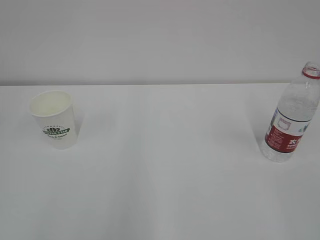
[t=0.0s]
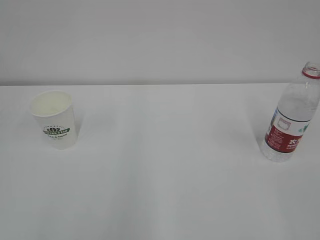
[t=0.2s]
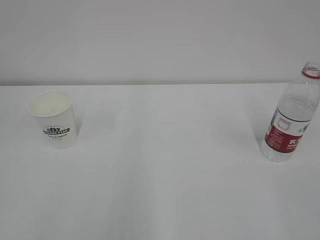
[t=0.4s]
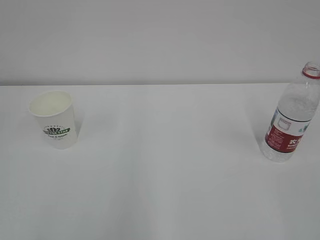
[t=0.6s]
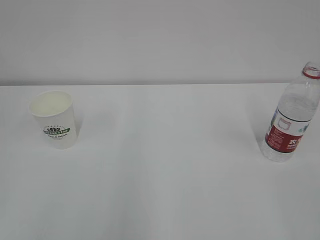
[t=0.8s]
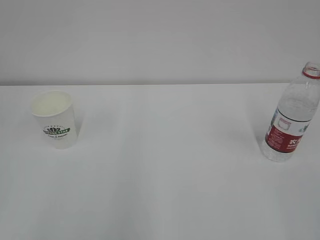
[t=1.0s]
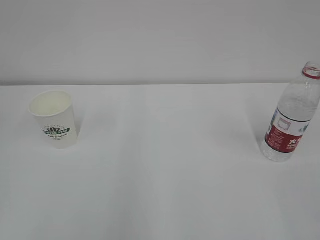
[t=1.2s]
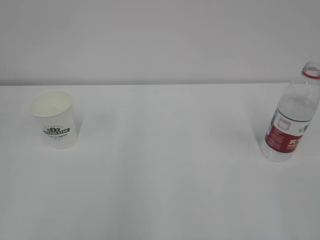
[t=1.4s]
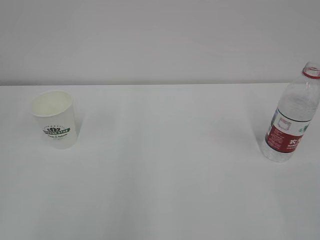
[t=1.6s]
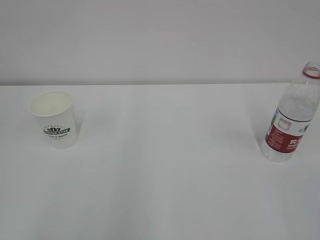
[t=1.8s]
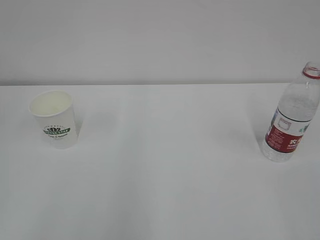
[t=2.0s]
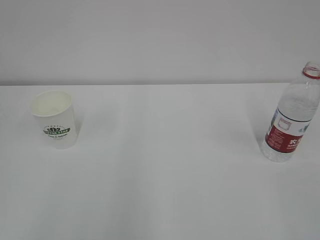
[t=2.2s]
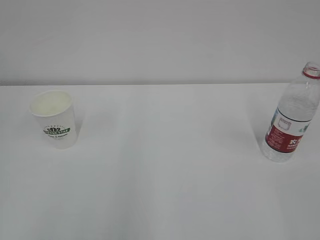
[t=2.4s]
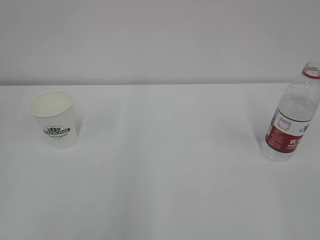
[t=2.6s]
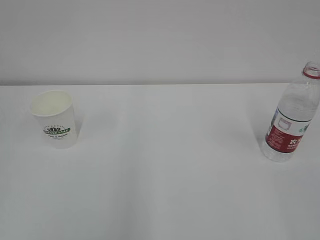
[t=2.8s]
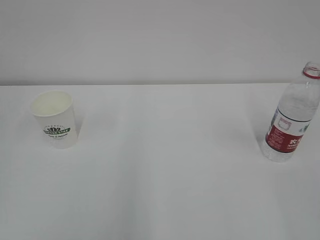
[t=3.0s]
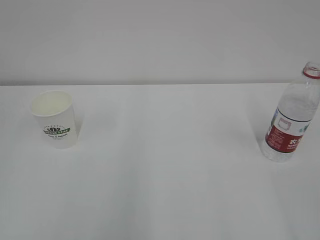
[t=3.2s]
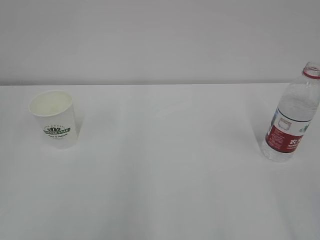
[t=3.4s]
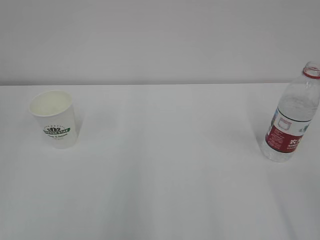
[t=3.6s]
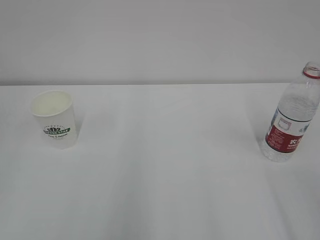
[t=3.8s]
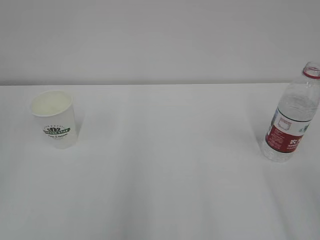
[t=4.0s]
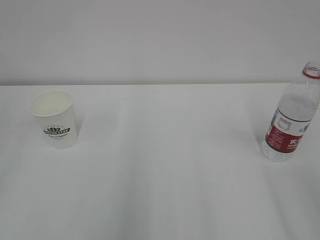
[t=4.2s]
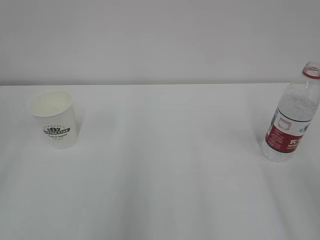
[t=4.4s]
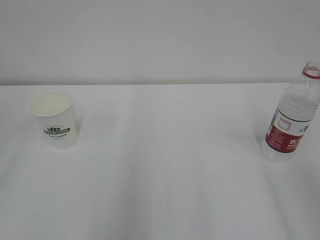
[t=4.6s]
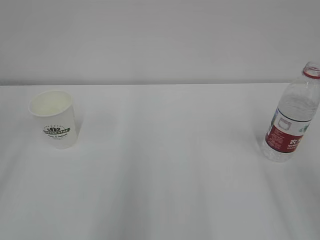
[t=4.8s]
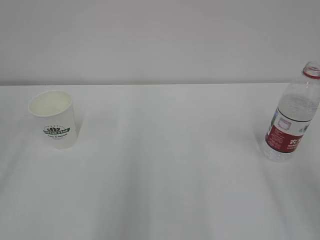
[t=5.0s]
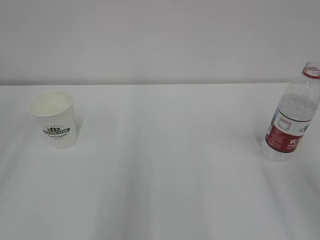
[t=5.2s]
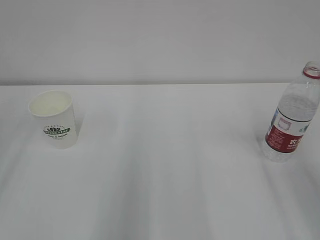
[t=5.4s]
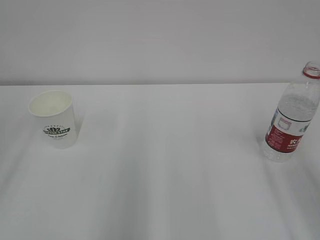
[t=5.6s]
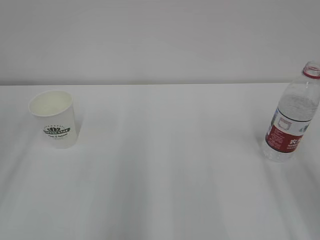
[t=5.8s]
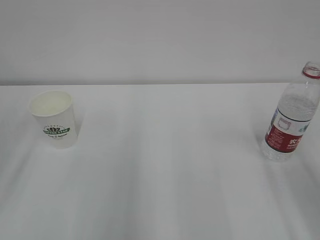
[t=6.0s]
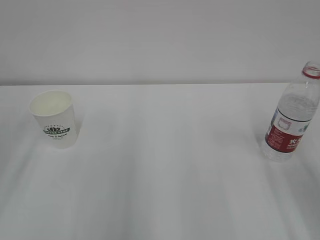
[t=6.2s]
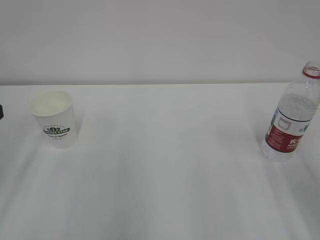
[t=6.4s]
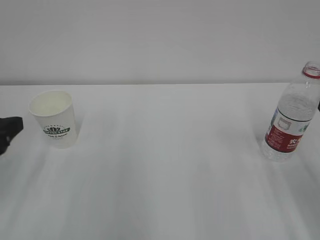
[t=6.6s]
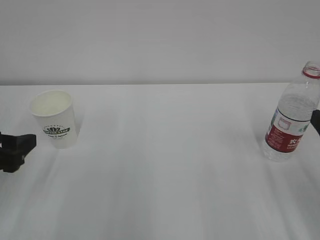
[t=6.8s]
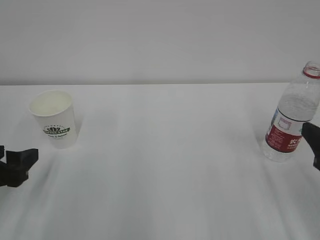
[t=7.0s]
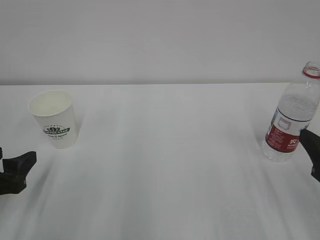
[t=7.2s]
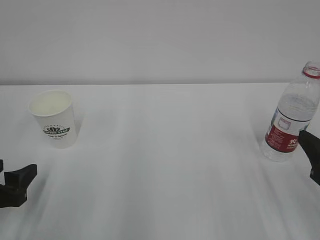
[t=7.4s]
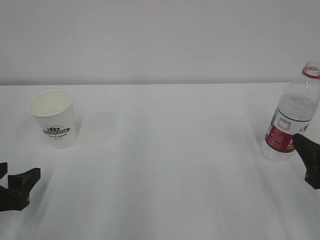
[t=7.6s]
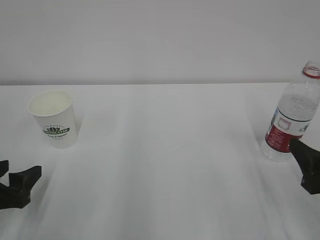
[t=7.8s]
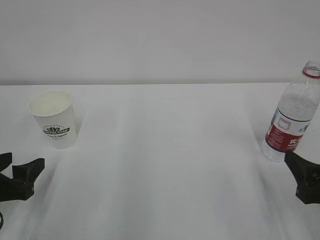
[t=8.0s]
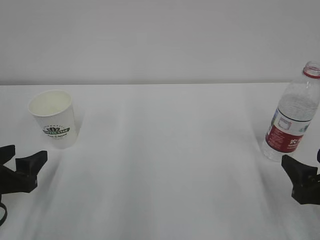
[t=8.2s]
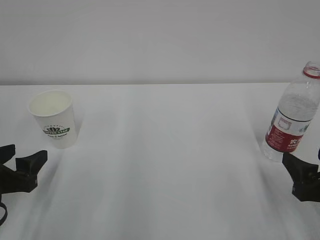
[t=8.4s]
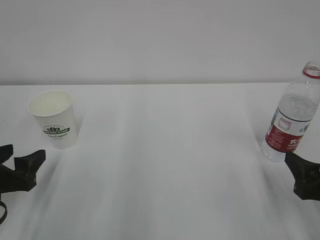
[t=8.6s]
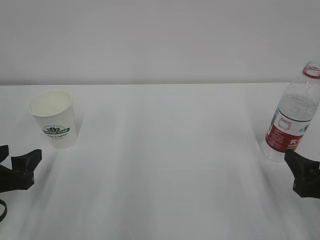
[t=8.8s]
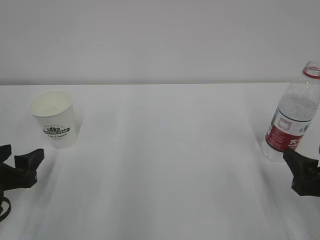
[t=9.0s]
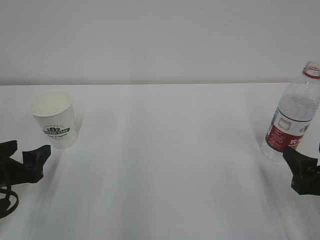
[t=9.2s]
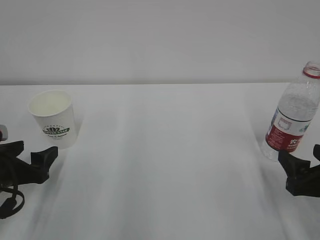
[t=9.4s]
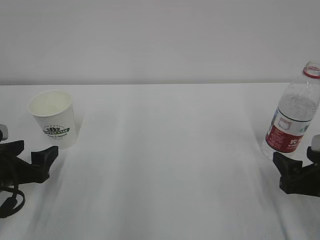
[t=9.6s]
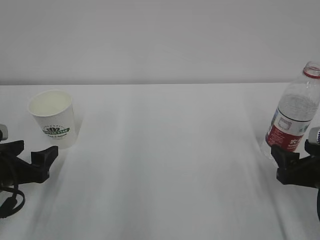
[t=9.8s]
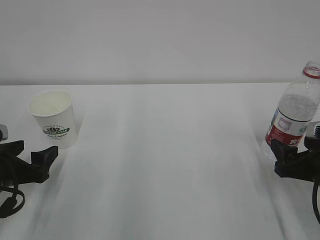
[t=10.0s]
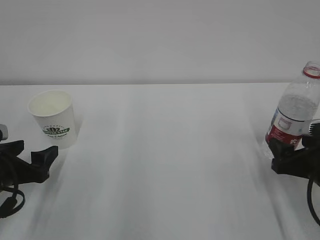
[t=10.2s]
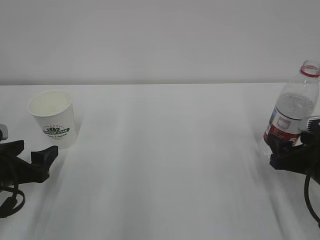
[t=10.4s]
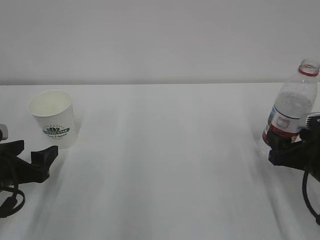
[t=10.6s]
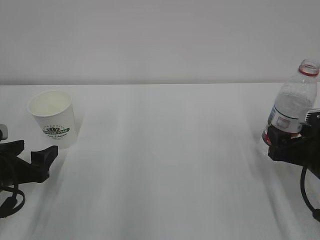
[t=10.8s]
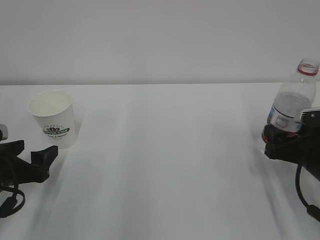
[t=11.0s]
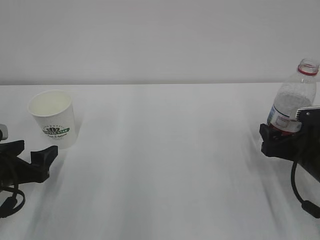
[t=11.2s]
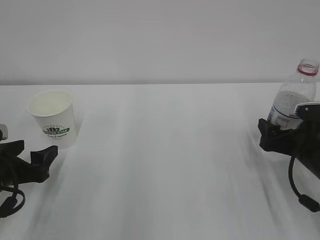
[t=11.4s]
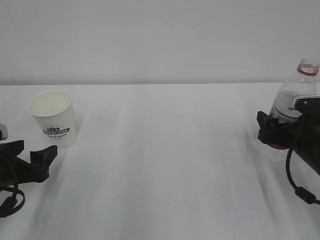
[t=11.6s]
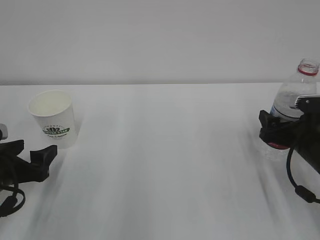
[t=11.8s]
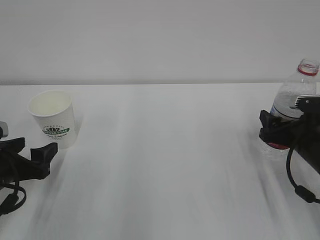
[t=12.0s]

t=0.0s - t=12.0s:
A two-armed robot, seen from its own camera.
t=6.0s - t=7.6s: The right gripper shifts some 10 cm downward; the left gripper shifts some 15 cm downward.
t=7.6s - t=9.0s: The grippers make only small movements.
t=9.0s - t=10.4s: The right gripper goes roughly 5 cm forward. Meanwhile the left gripper opens its fingers.
t=10.4s - t=12.0s: The right gripper heads forward, covering some 5 cm.

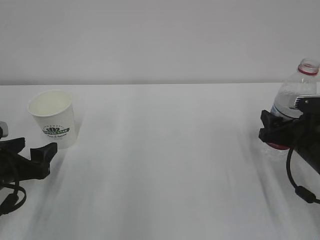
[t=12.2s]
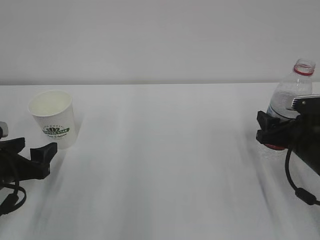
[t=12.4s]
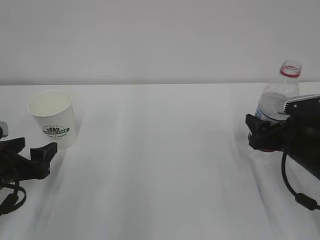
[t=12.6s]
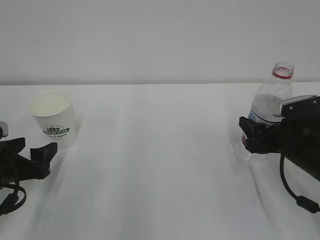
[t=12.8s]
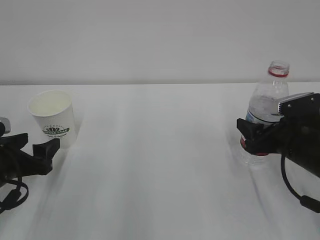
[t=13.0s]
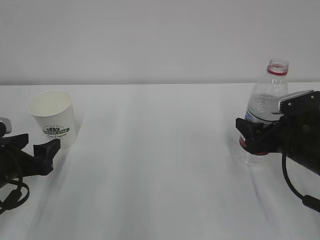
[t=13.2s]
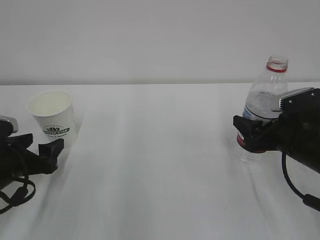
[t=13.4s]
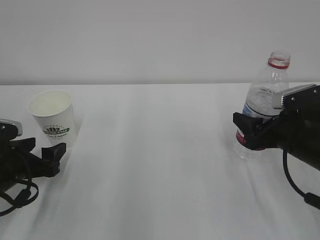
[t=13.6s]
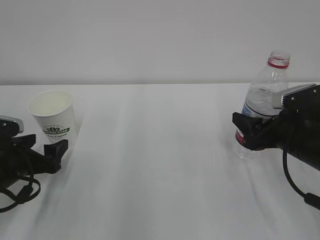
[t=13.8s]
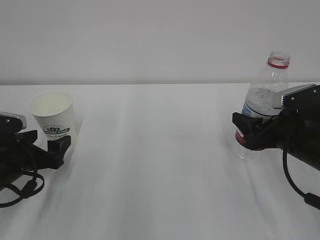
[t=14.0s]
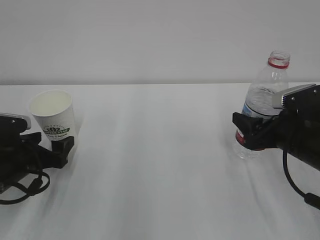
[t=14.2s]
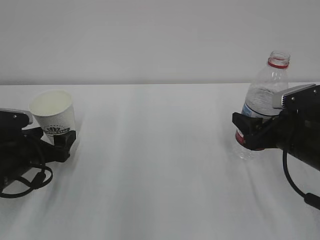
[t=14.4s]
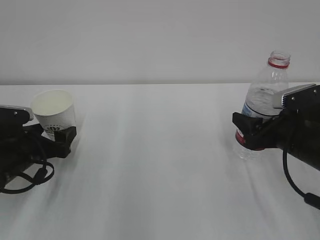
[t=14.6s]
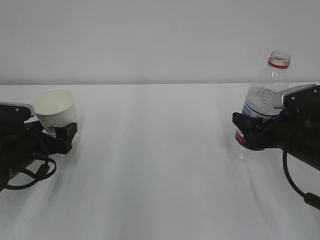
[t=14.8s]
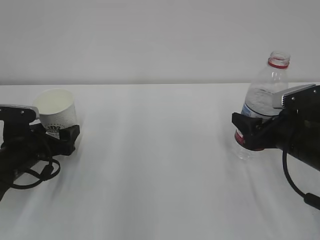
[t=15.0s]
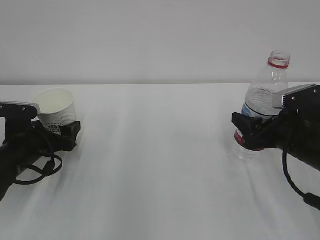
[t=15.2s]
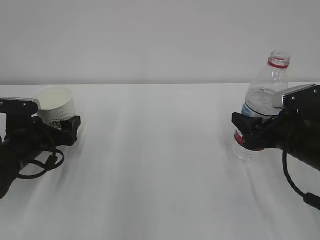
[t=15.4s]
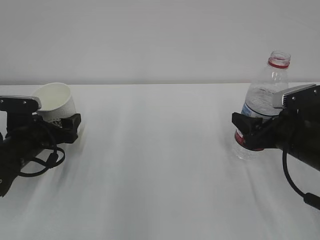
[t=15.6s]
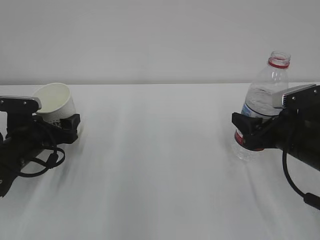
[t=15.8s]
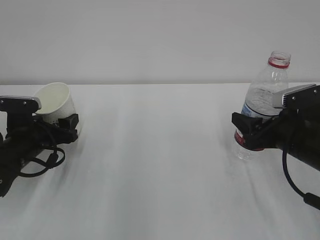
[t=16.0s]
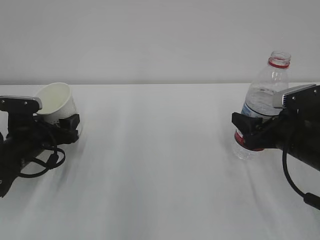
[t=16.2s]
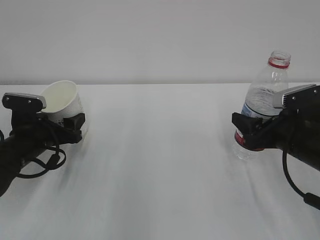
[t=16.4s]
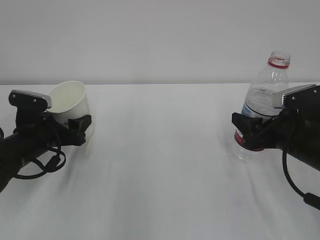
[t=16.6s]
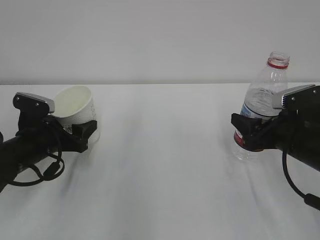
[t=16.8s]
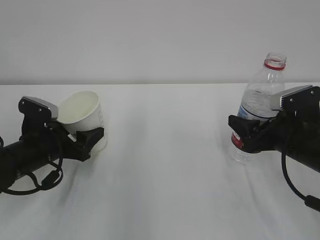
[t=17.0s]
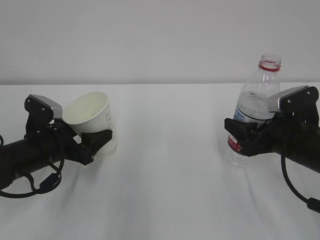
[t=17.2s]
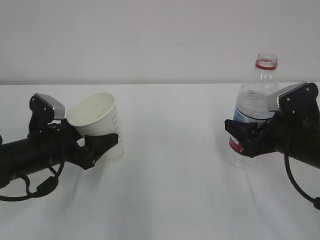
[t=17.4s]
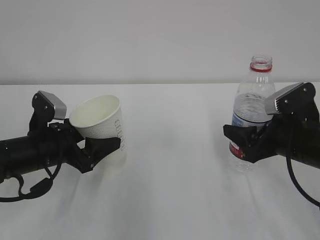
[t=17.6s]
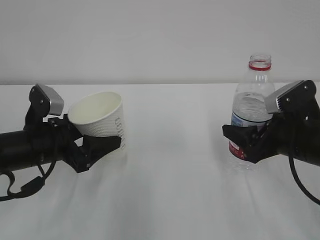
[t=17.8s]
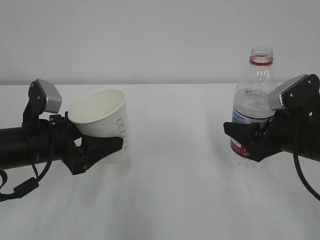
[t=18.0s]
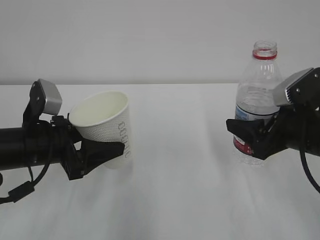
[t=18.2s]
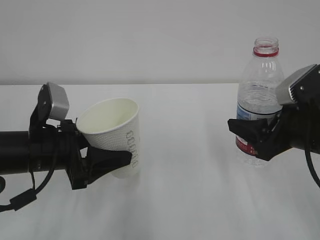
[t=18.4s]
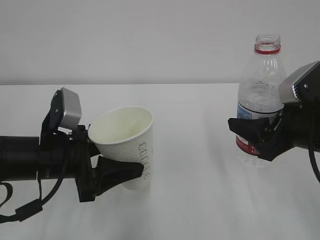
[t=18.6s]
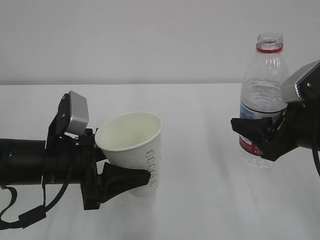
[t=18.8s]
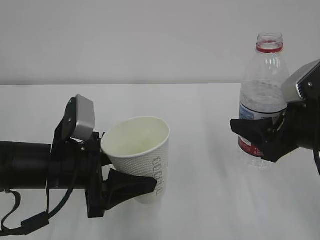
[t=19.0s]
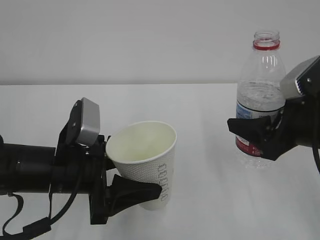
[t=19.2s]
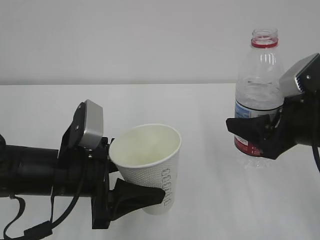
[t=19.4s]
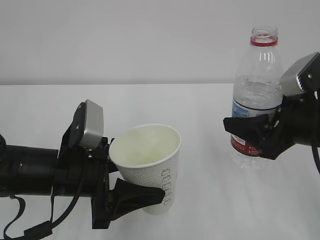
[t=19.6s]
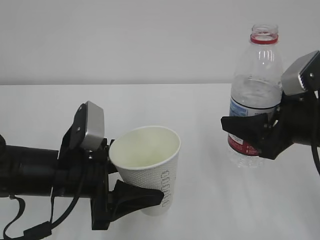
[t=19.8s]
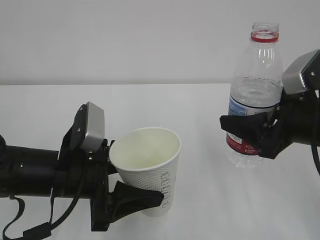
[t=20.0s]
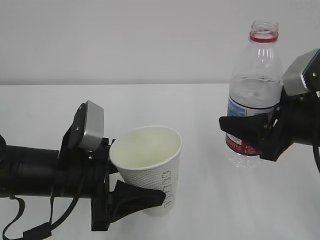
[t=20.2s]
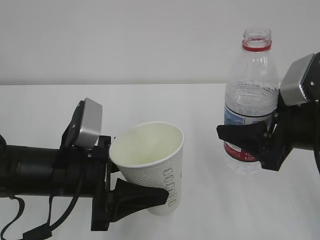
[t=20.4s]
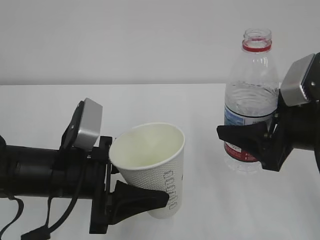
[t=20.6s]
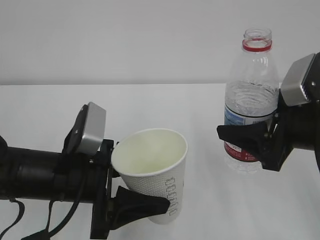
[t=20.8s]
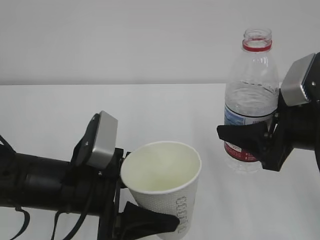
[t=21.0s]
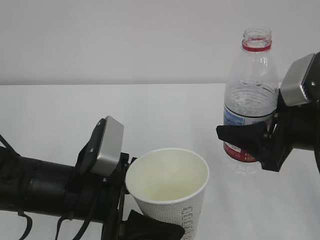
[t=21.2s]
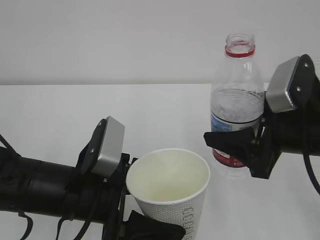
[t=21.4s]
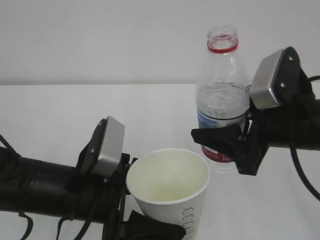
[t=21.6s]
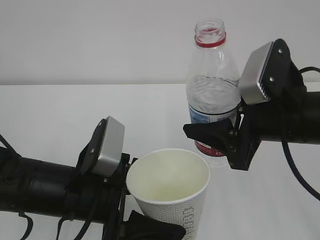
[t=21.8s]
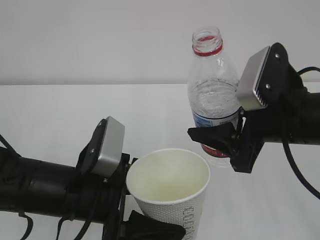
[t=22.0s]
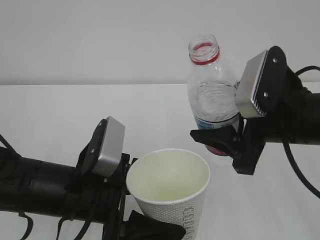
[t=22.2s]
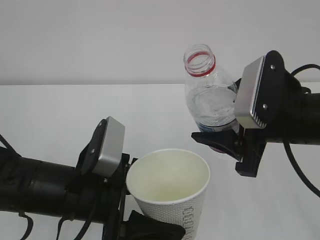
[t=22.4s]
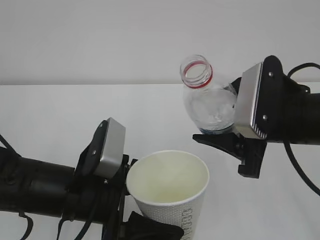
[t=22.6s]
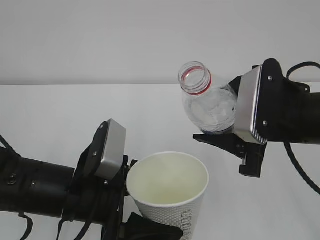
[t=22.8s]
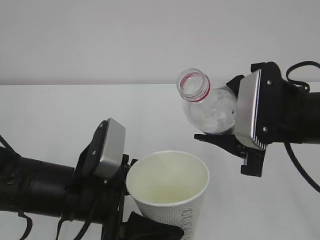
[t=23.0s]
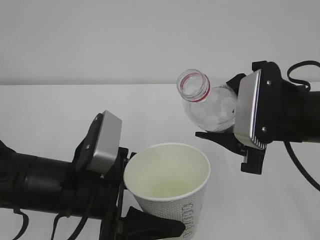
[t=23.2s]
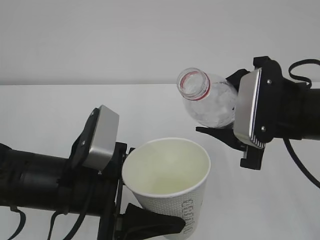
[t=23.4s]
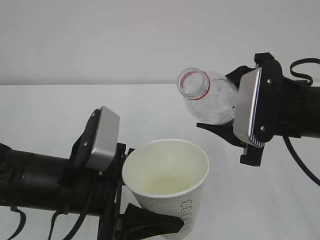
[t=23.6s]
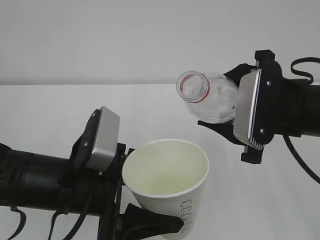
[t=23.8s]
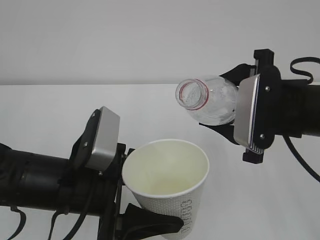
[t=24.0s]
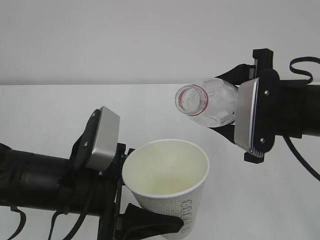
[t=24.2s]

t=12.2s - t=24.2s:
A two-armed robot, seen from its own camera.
t=13.8s - t=15.2s: The left gripper moves forward, some 5 cm.
t=15.2s - t=16.6s: The left gripper closes up.
t=16.6s - t=18.2s: The right gripper shifts by about 5 cm. The left gripper heads upward and backward, covering some 10 cm.
t=18.2s - t=19.8s: The left gripper moves to the right, about 5 cm.
